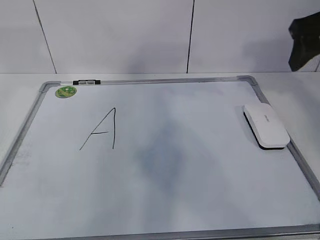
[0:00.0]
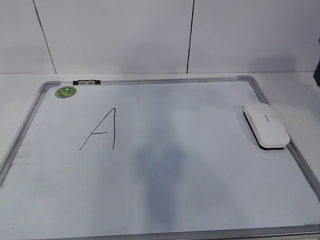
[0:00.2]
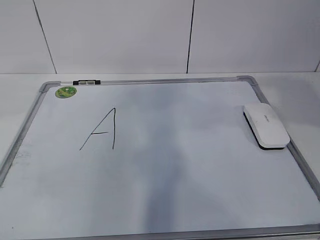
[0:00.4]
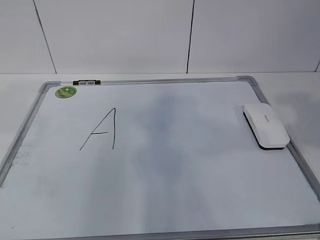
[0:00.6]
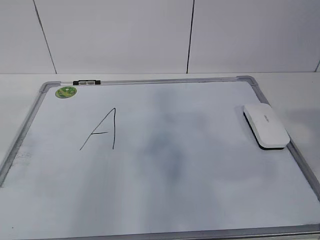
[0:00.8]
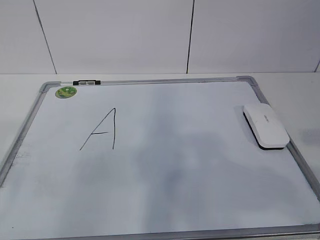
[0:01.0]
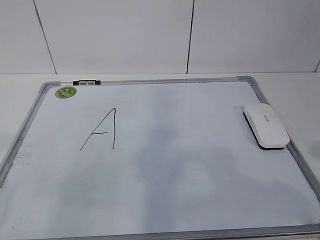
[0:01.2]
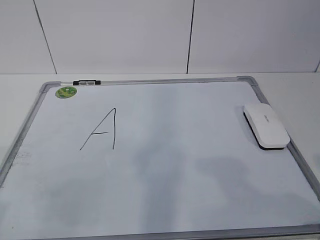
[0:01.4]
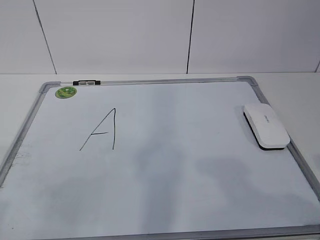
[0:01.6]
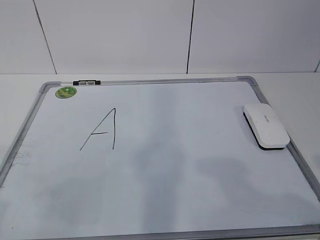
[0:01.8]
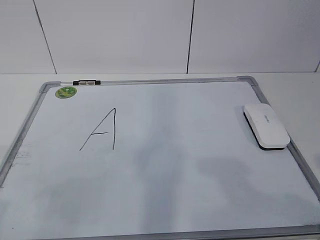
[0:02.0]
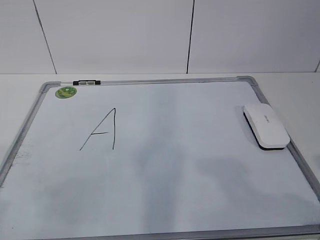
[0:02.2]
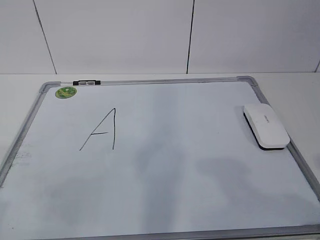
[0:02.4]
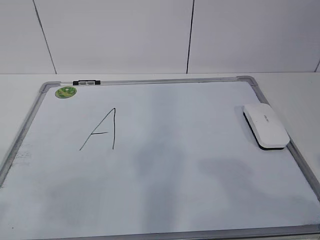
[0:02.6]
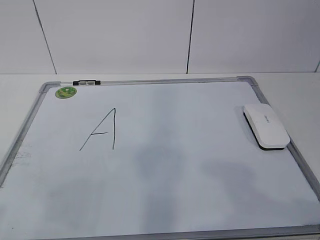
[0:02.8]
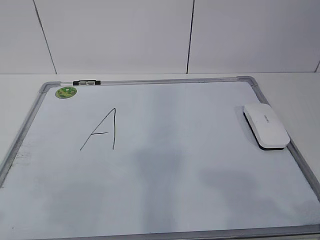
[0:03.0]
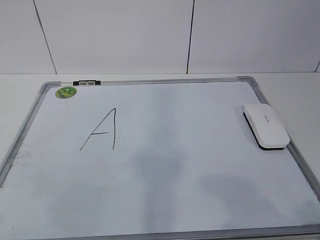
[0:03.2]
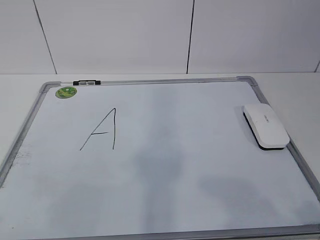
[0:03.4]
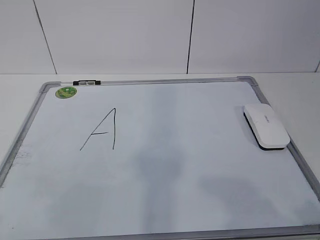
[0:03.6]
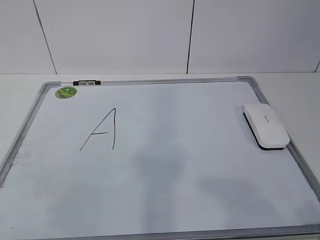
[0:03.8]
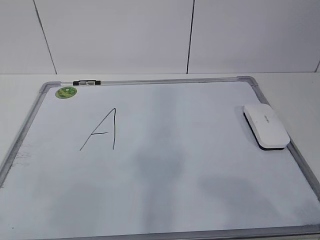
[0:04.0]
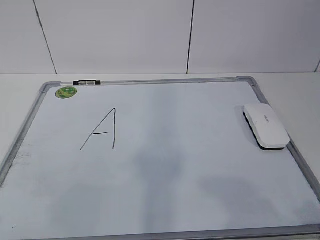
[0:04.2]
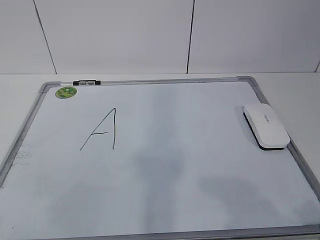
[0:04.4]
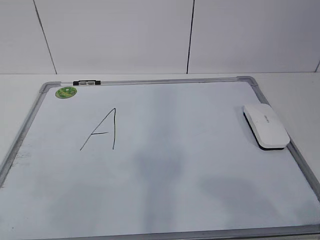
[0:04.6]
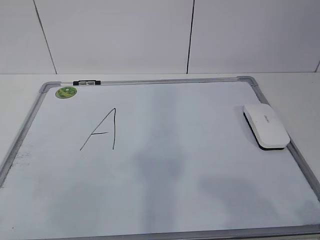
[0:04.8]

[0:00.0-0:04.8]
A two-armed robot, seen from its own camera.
Task of the whole recording: pick up the eraser on the blackboard and erase the letter "a".
0:00.0 to 0:01.6: Both grippers travel together backward, roughly 30 cm.

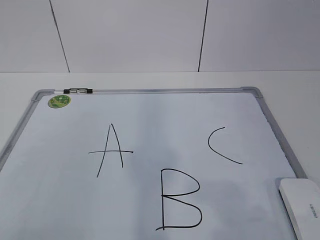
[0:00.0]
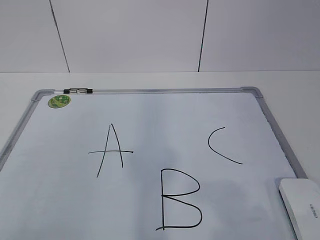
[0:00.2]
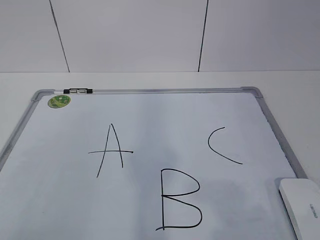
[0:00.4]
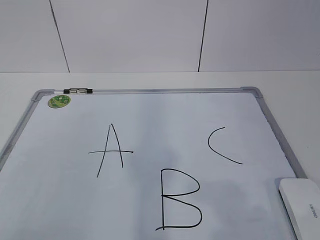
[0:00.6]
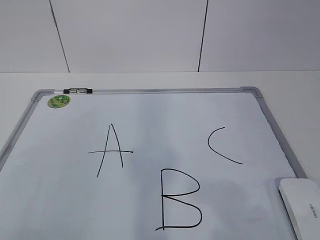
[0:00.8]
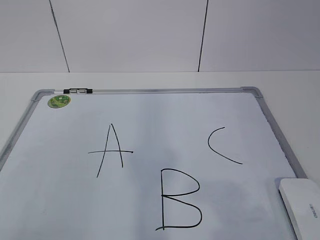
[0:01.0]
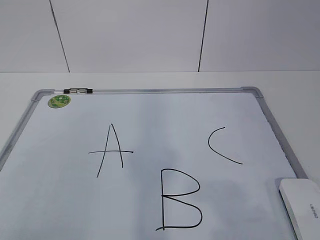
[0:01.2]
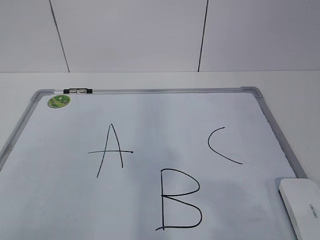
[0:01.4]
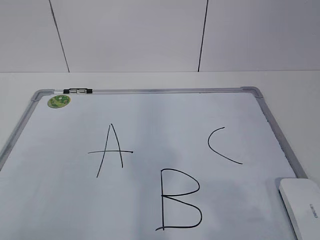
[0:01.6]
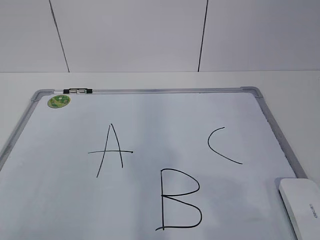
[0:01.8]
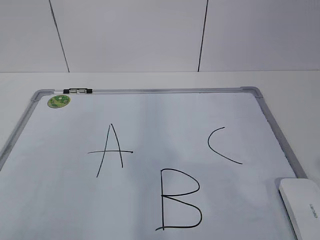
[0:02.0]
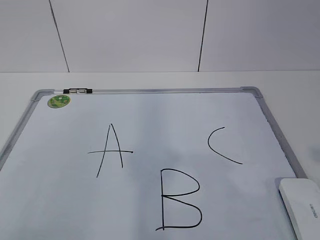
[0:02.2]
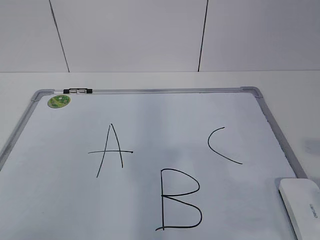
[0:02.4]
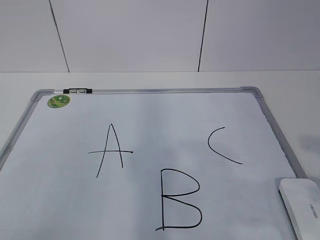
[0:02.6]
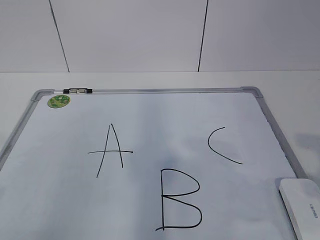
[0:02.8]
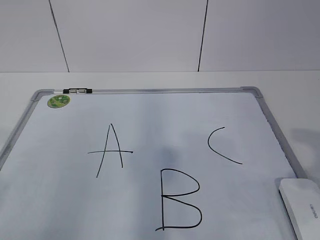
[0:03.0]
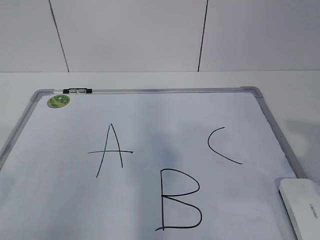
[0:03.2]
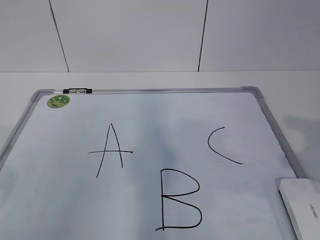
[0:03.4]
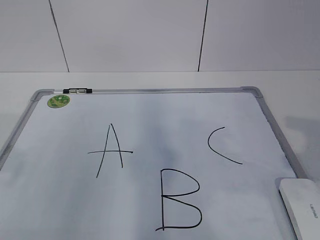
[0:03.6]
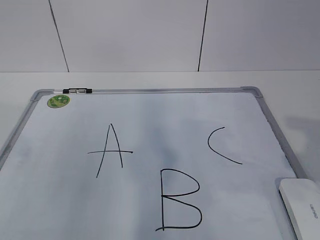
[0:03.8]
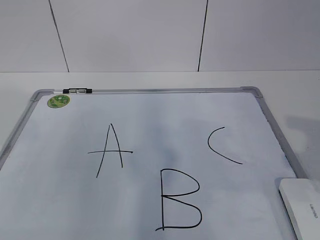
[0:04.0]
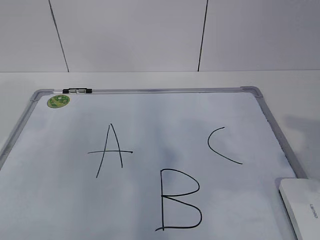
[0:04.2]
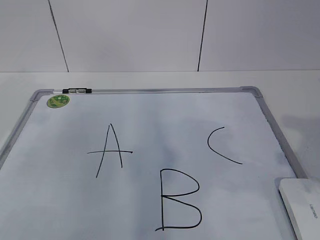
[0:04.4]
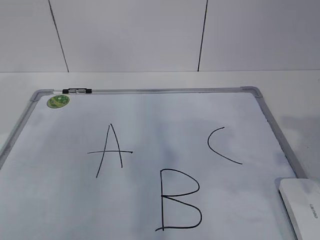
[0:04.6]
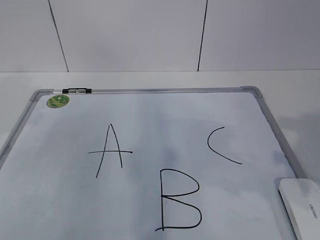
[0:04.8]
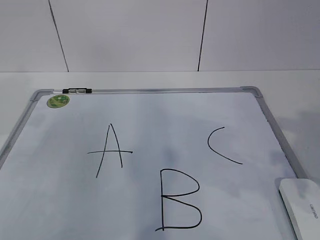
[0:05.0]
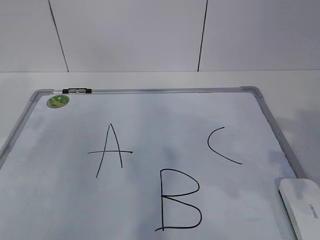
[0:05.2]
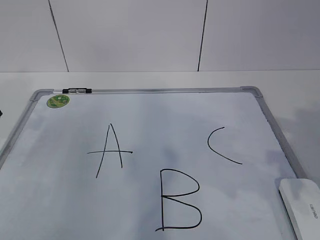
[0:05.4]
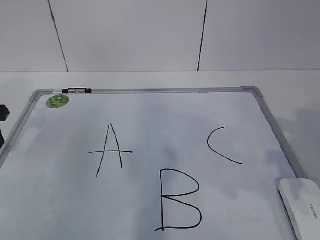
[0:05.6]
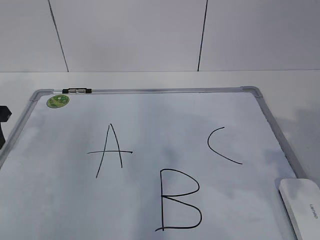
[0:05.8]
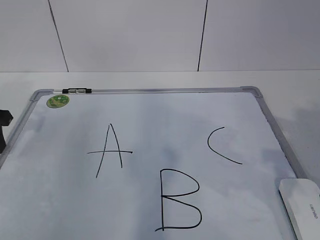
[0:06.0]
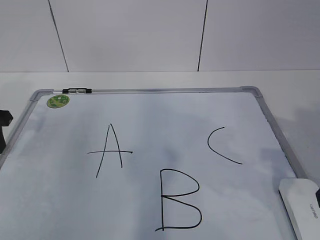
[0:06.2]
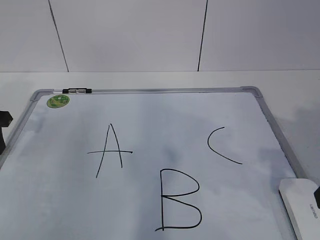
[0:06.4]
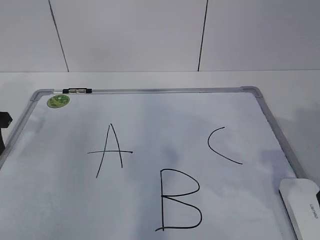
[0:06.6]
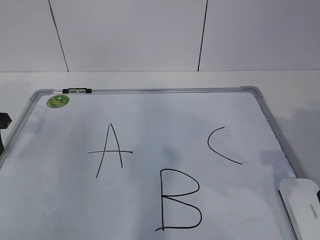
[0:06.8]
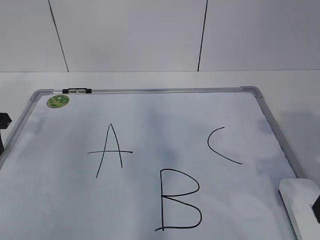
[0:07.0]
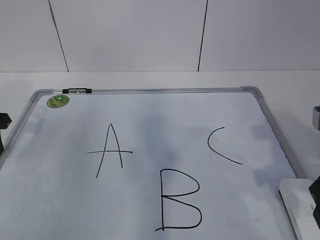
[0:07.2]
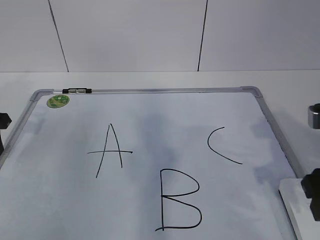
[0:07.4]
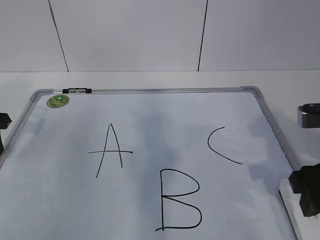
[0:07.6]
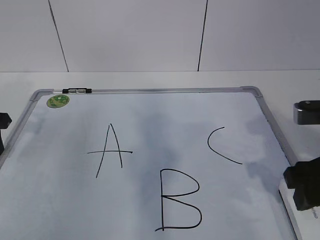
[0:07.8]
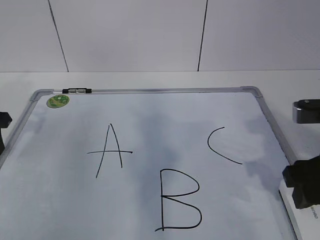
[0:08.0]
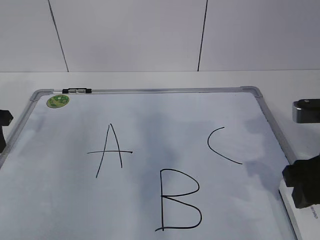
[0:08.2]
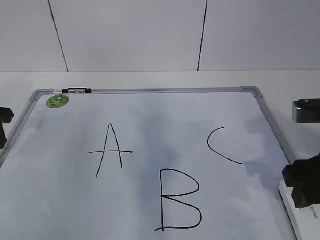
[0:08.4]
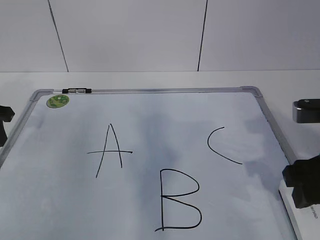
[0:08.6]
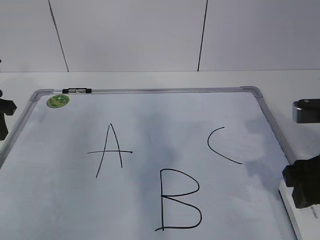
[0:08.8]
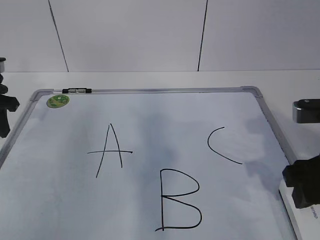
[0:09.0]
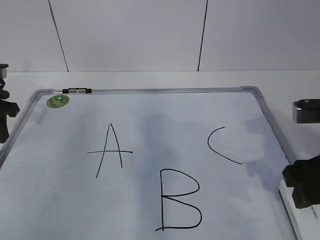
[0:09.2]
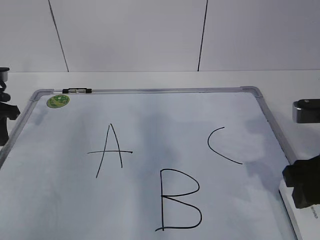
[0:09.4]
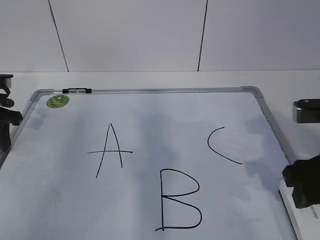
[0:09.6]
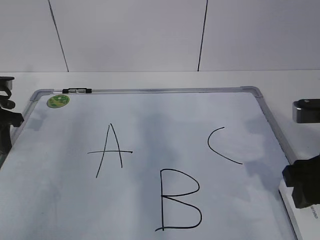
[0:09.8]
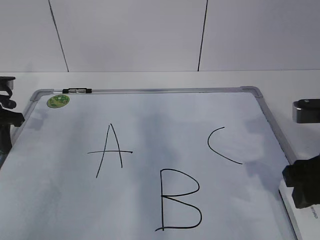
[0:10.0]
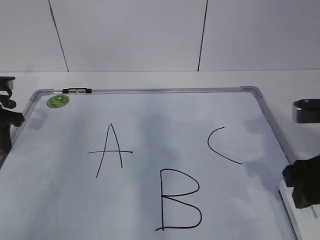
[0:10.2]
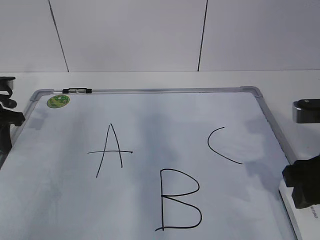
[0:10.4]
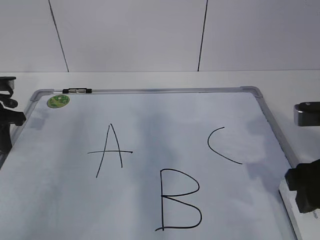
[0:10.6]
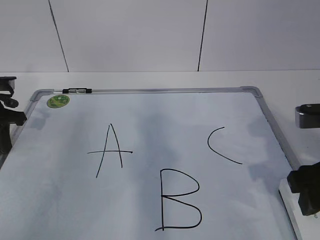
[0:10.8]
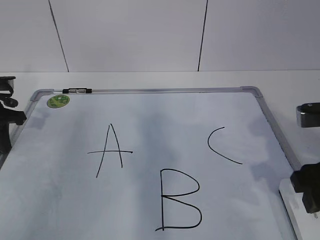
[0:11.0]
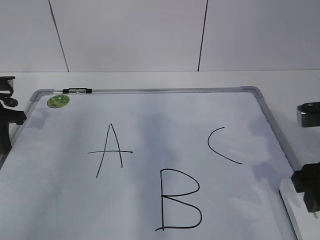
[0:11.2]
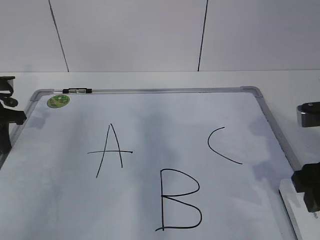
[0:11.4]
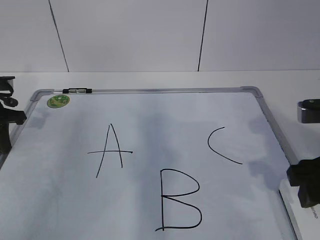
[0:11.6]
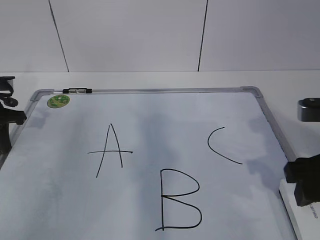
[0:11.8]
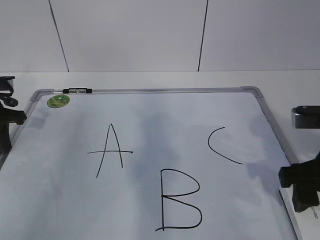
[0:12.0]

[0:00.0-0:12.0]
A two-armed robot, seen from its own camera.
Task of the whole recording: pick up the eraser on the blackboard and erase the letter "B".
Step, 0:00.0 to 0:09.2: Hold the drawing board steady with your left hand.
0:04.4 to 0:06.0: The left gripper goes approximately 10 cm downward and forward.
0:06.0 to 0:07.6: The right gripper ends up approximately 5 cm from where it was.
0:07.6 to 0:10.4: The grippers make only small movements.

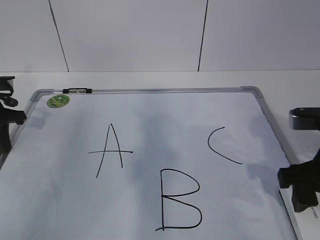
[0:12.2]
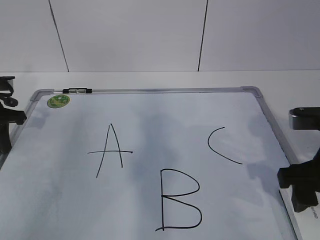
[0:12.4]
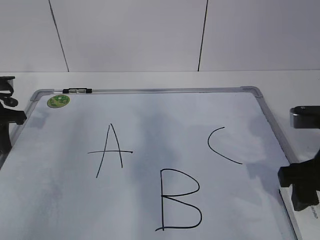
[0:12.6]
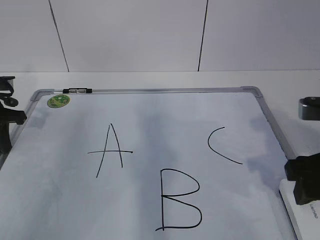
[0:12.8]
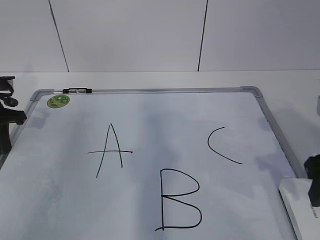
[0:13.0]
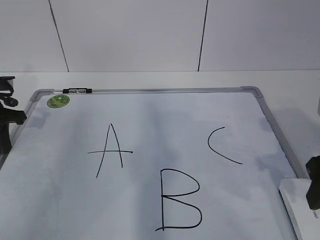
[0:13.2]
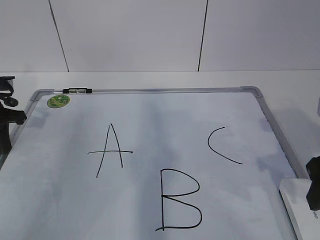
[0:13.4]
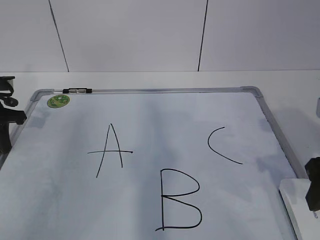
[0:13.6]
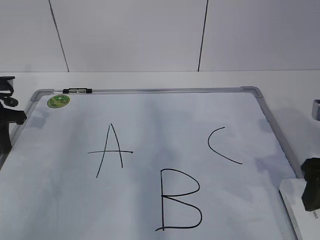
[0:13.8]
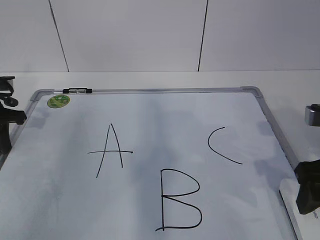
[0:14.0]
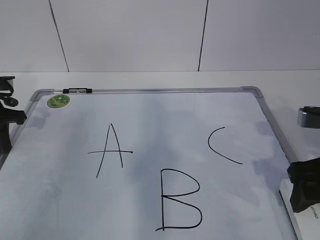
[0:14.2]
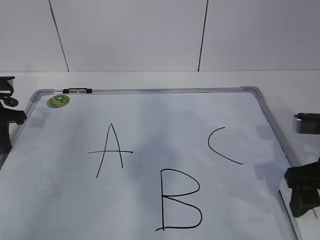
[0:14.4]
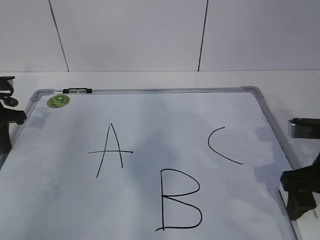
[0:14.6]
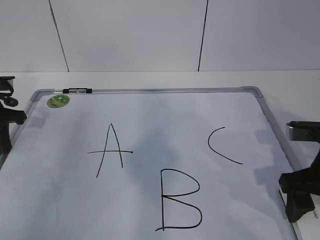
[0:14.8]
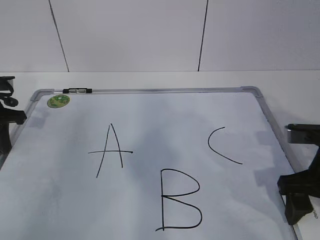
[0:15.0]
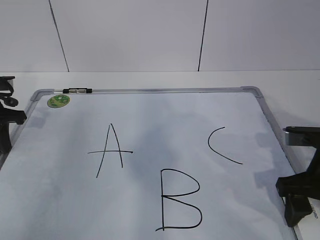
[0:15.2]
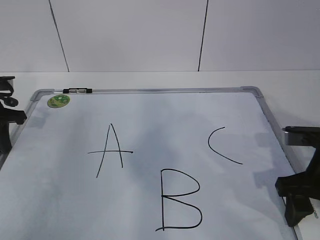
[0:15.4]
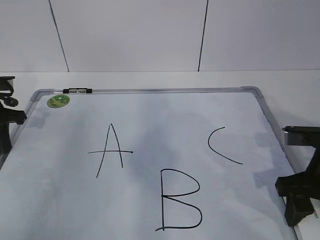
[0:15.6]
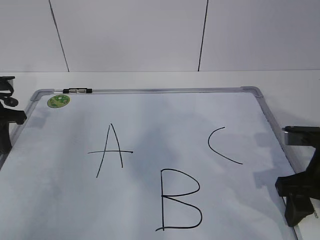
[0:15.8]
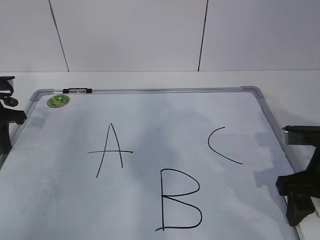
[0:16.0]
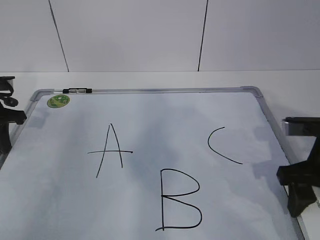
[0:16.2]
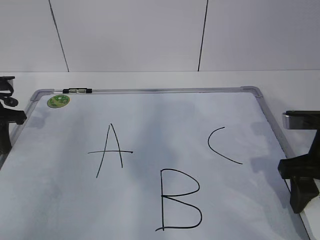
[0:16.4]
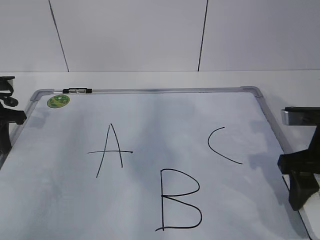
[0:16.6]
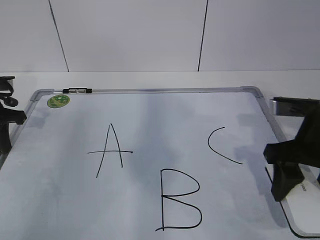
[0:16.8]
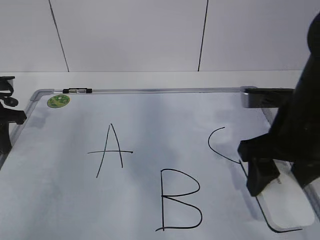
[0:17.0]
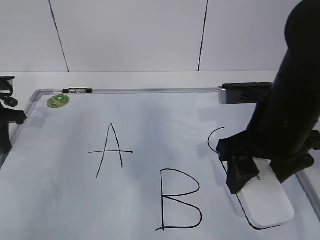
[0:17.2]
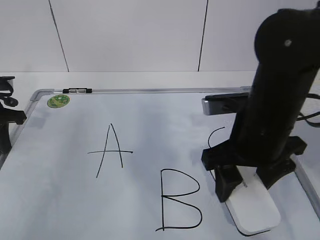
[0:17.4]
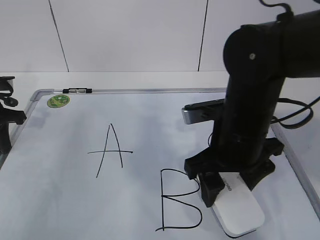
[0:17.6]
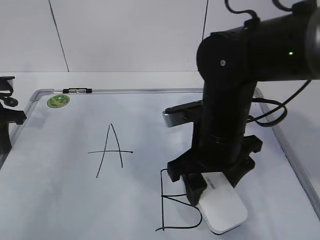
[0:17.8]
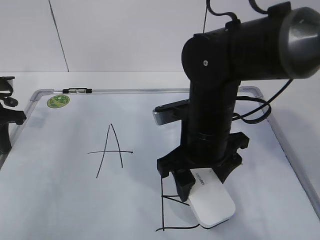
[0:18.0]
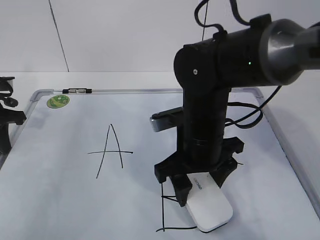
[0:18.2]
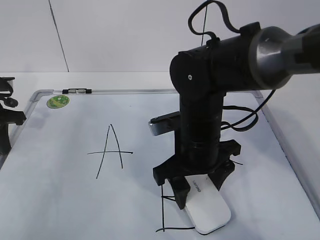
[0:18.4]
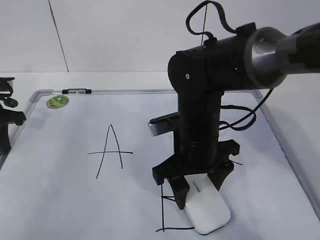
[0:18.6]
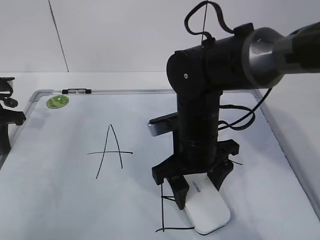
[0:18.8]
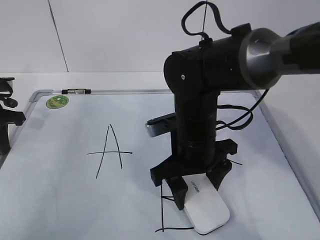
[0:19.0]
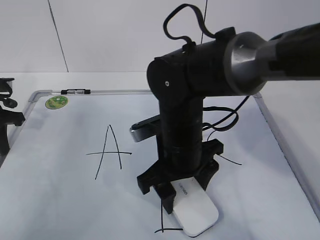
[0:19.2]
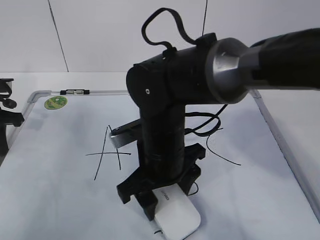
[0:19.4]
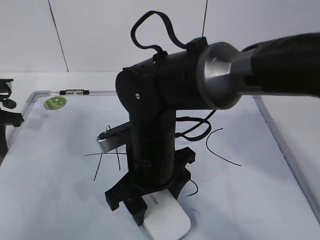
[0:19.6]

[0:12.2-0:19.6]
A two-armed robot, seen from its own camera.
Task of the whole recording: pick up the eraser on the blackboard and erase the letter "B".
0:12.2 to 0:13.6: There are only small adjustments of the grippers.
0:13.6 to 0:15.2: The right gripper shifts roughly 5 cm downward.
0:15.2 to 0:16.6: There are only small adjustments of the grippers.
0:16.6 to 0:18.2: The right gripper moves to the left, approximately 15 cm.
0:18.2 to 0:19.6: The right gripper heads to the left, covering roughly 5 cm.
